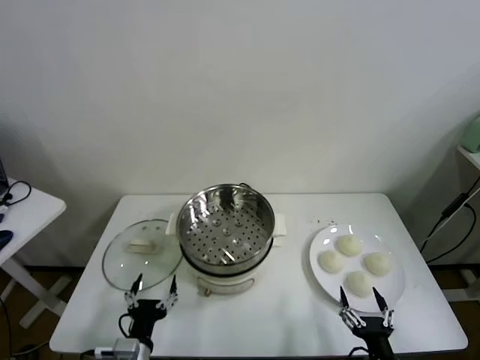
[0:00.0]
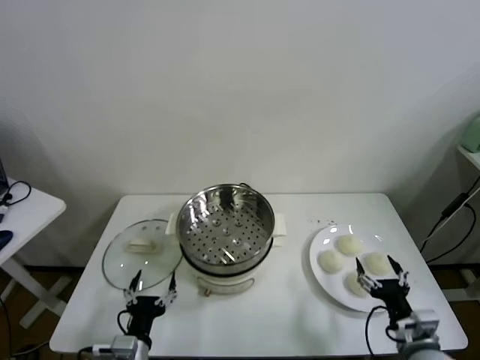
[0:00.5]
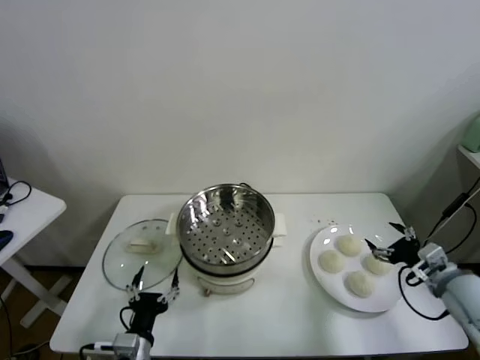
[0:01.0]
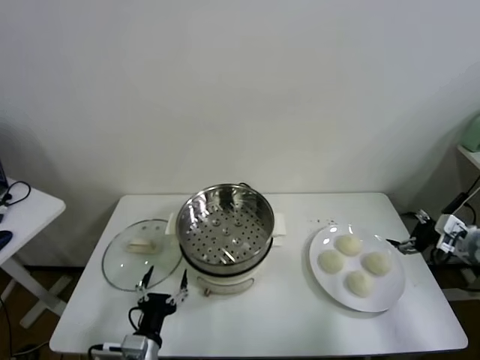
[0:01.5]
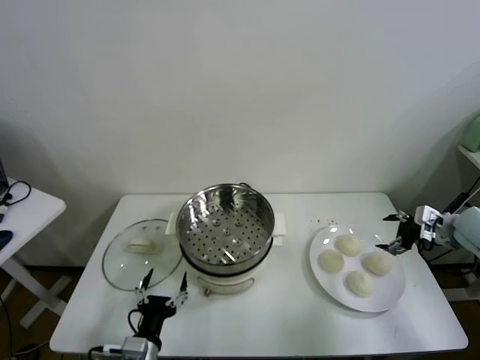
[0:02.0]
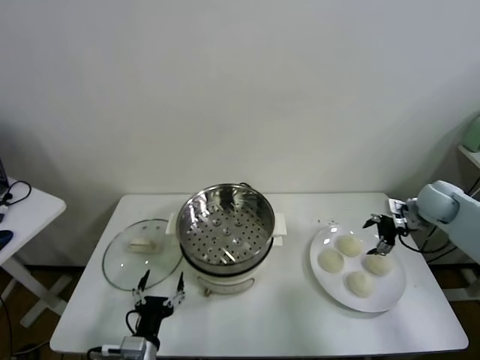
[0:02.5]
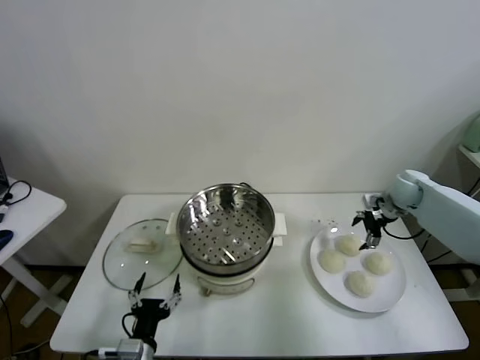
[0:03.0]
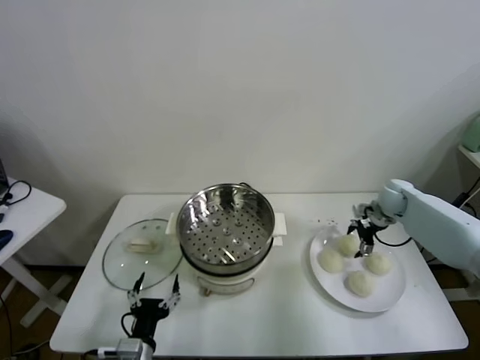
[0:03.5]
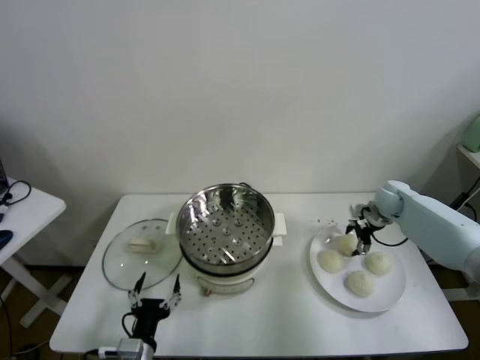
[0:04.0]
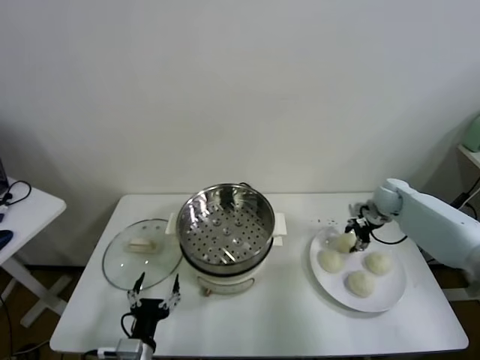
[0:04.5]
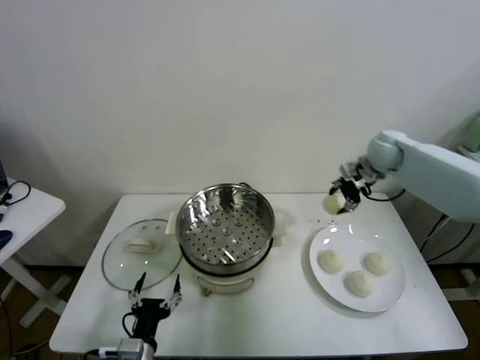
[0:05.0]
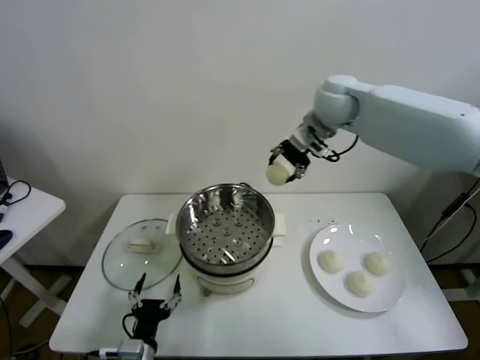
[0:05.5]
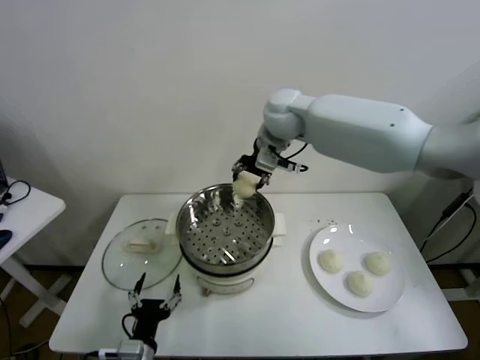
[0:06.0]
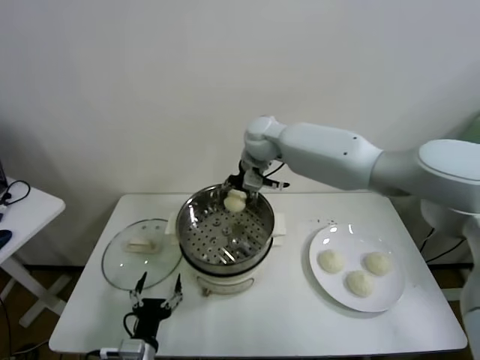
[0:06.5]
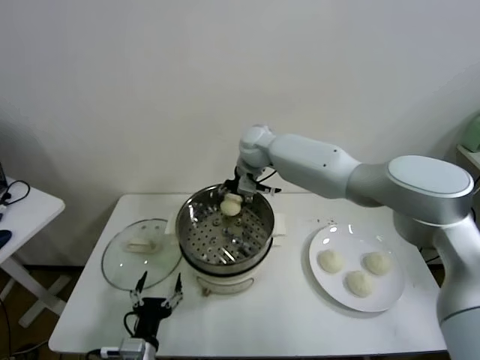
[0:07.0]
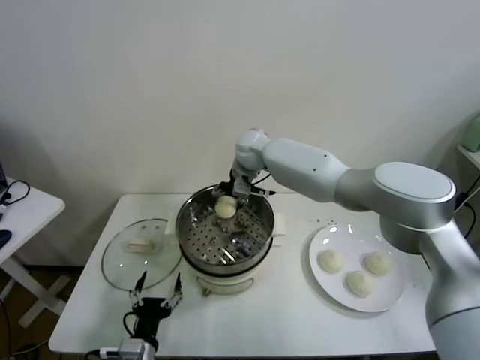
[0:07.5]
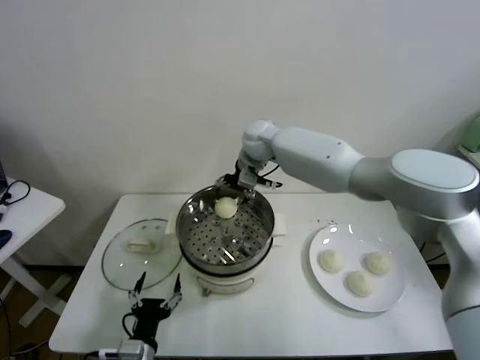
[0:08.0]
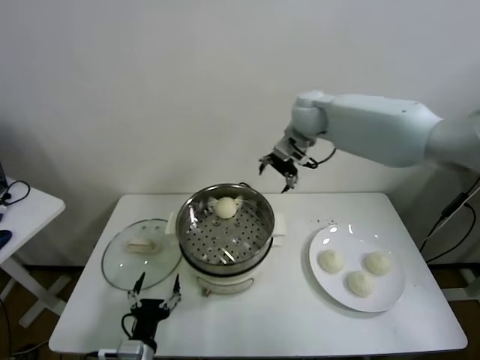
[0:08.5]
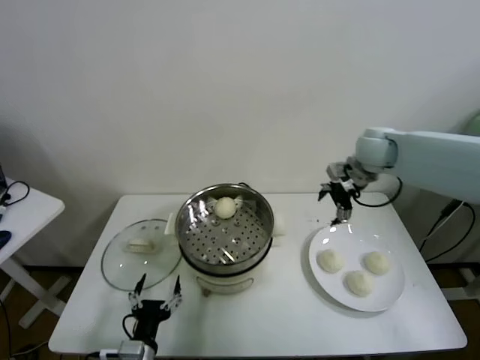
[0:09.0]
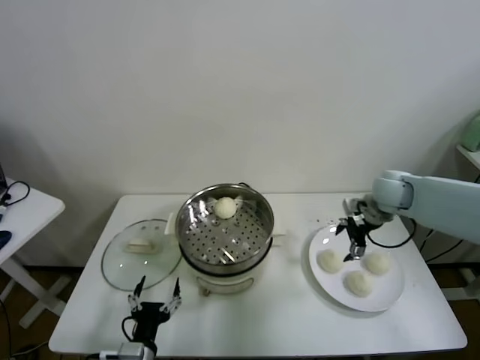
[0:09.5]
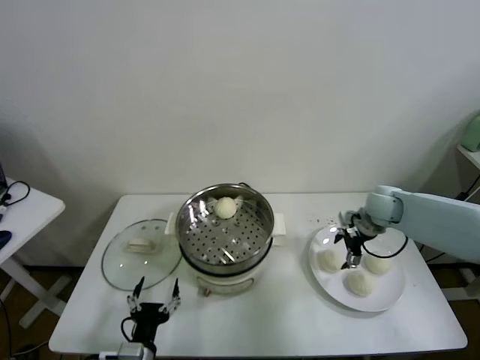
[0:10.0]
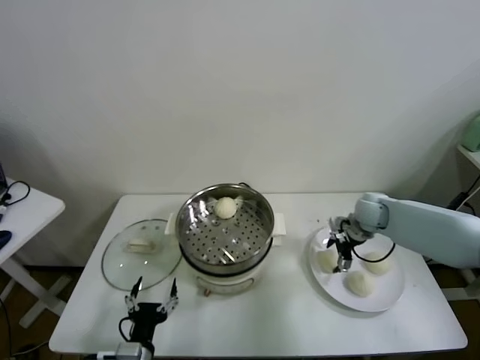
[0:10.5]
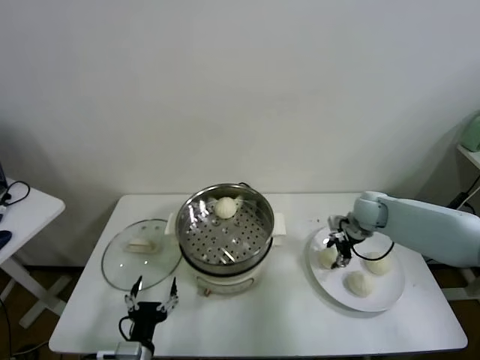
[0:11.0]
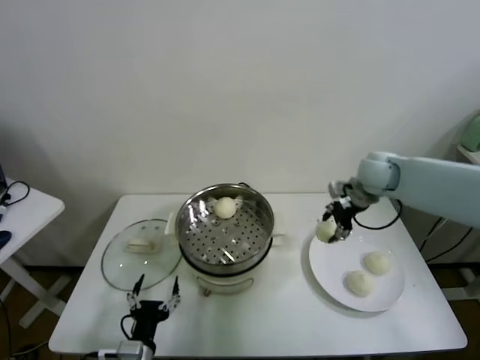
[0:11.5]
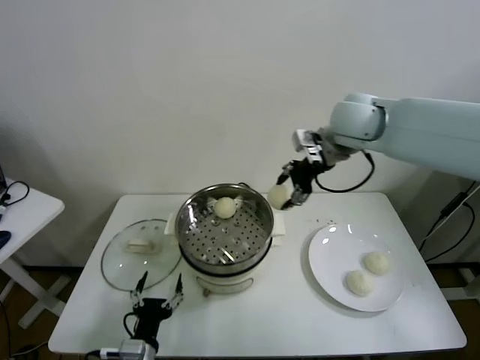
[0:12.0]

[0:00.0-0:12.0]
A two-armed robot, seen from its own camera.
Task of the whole recording: take steamed baozi put them in steamer.
Step, 0:00.0 to 0:04.0: Grasp the baozi in the plate with right gripper.
Step, 0:04.5 to 0:07.5: Place the baozi on the steamer with right gripper.
Step, 0:08.0 to 0:11.0: Grasp the baozi in the plate with right gripper.
0:02.0 to 0:04.0: The right gripper goes about 20 cm forward, to the left and downward.
0:04.0 to 0:06.0: The right gripper goes about 40 cm to the left and upward.
0:06.0 to 0:08.0: The right gripper shifts roughly 5 cm downward, and opens its fingers.
0:08.0 to 0:10.0: The right gripper is displaced to the right and downward by roughly 35 cm.
0:10.0 to 0:12.0: The right gripper goes some 30 cm upward and to the left, and closes its fingers.

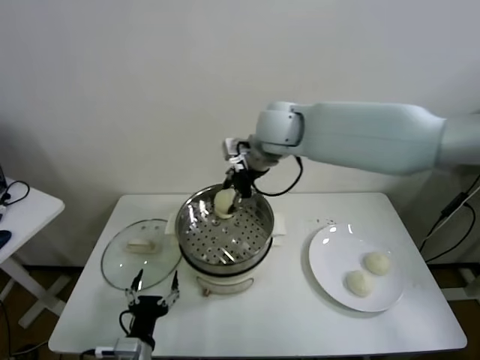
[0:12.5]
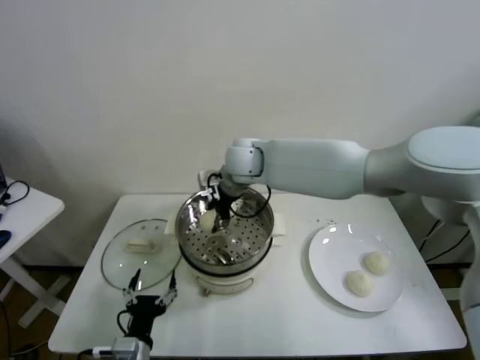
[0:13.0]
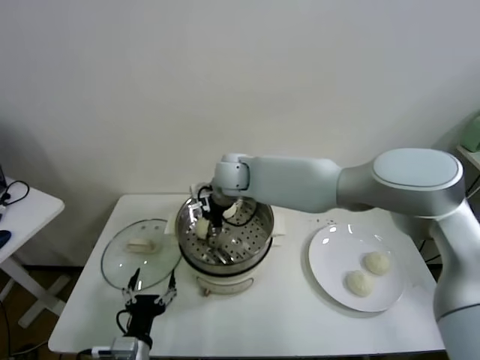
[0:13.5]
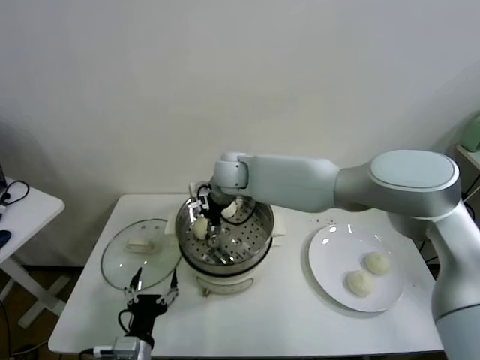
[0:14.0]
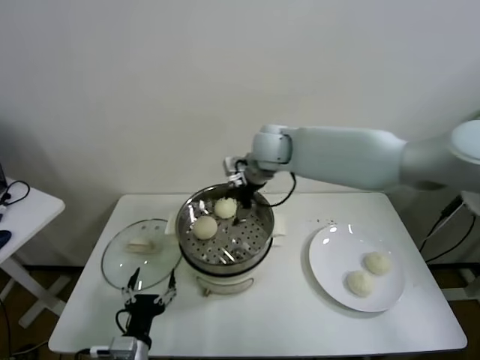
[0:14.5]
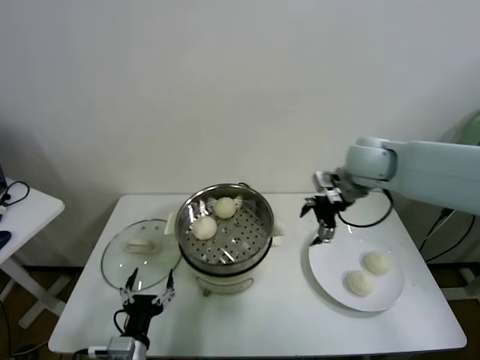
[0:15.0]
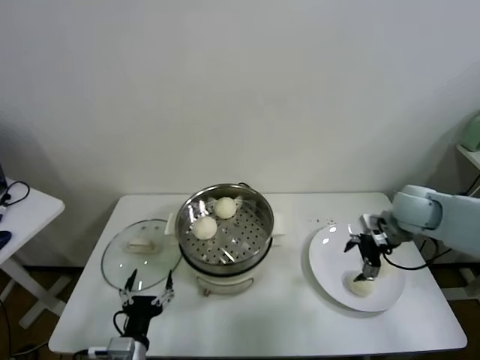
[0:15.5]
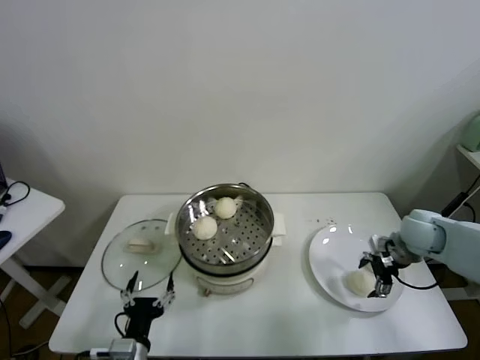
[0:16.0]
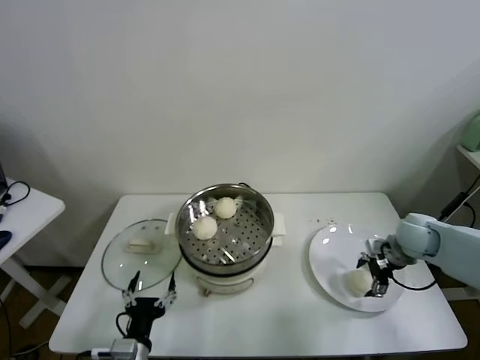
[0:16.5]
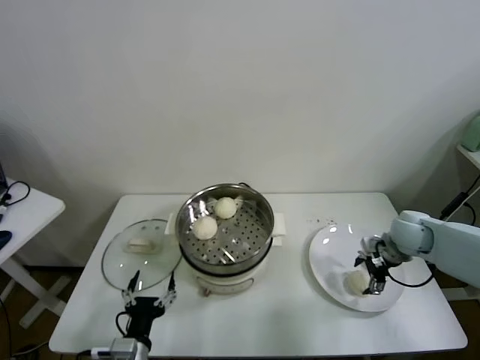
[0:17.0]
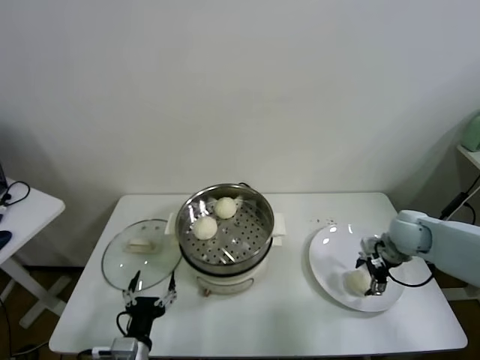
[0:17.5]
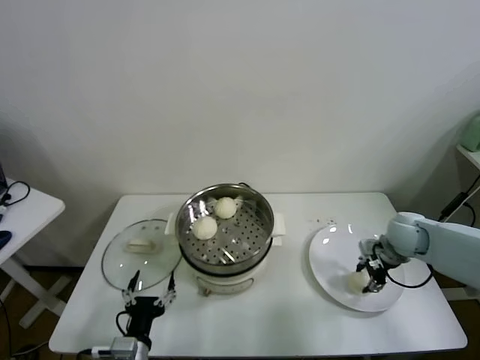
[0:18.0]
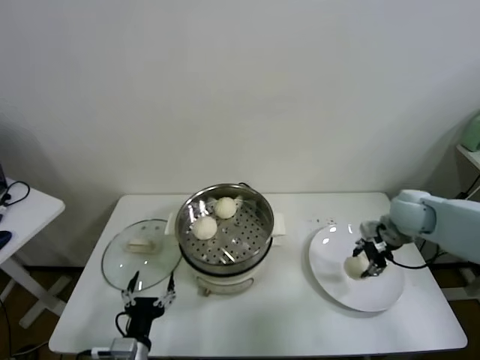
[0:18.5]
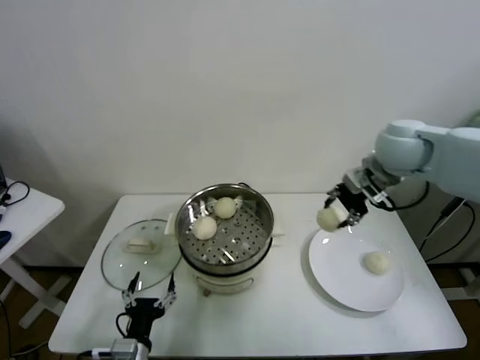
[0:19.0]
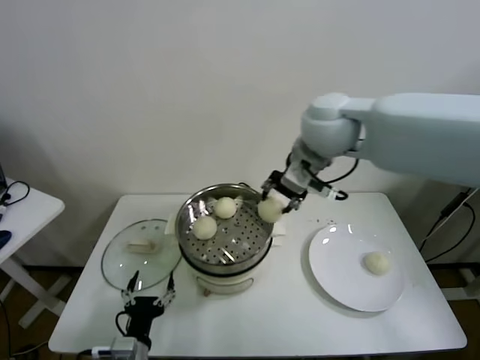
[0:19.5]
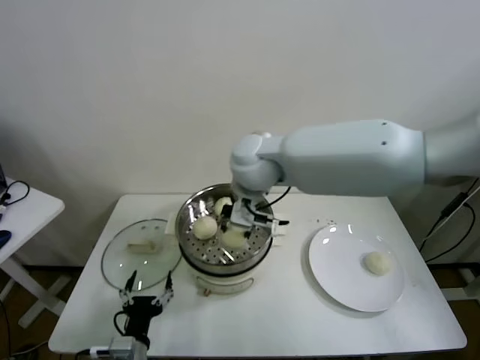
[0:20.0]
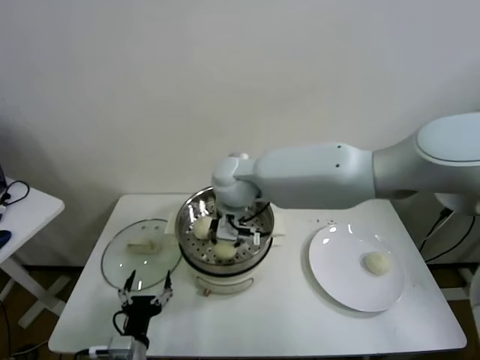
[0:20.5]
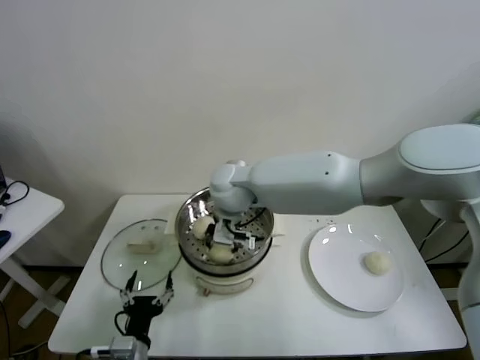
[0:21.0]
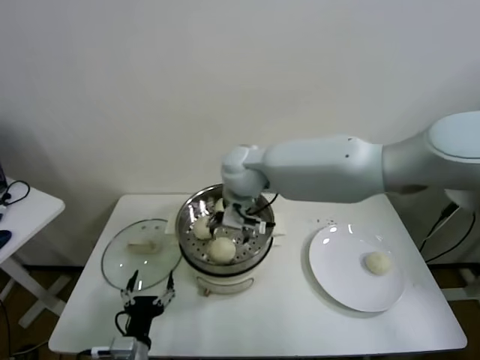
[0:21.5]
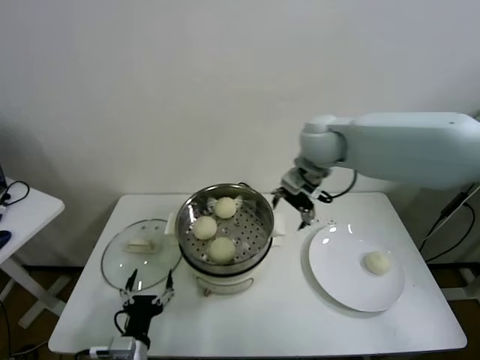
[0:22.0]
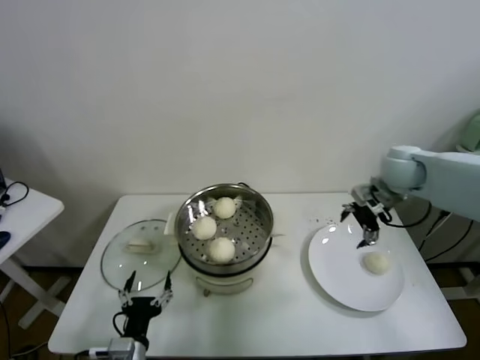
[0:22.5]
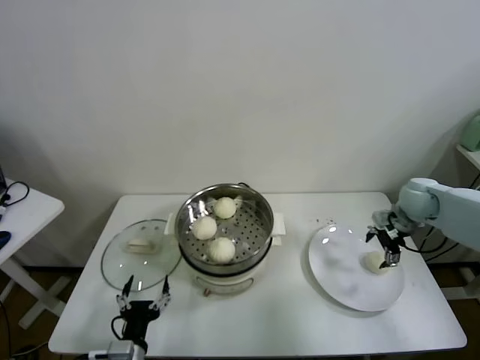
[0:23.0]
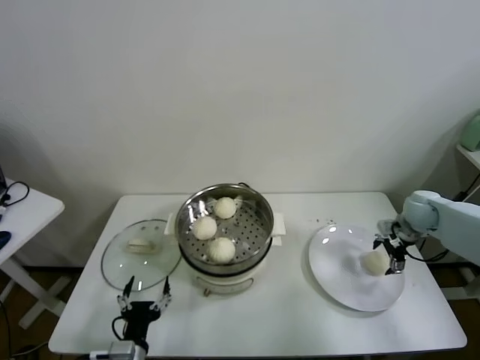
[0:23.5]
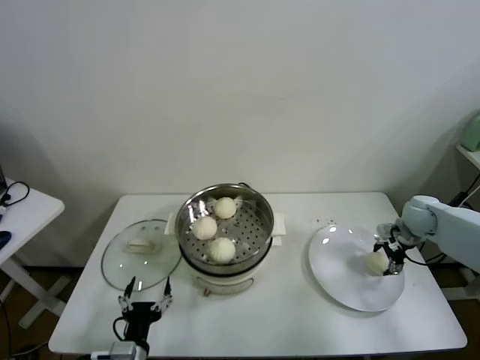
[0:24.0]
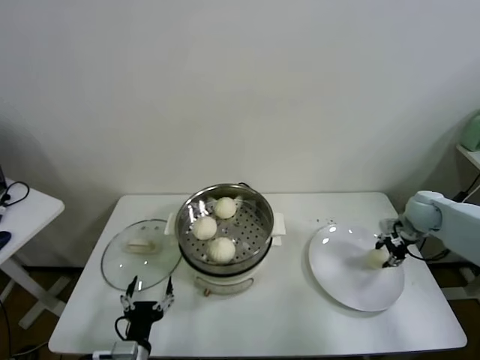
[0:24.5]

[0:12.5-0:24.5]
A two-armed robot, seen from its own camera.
Task of the whole recording: take steamed baozi put them in steamer.
Step, 0:12.5 to 0:14.0: Place the baozi on the steamer with right gripper.
Step, 0:14.5 to 0:18.0: Grasp the baozi in the plate with right gripper.
Step, 0:18.5 to 0:21.0: Place the baozi on the steamer with right gripper.
Step, 0:21.5 to 0:24.0: Grasp the baozi in the plate with right gripper.
0:12.5 to 0:14.5: The right gripper goes downward and returns, about 10 cm each way, and opens.
0:14.5 to 0:16.5: The right gripper shifts approximately 35 cm to the right and downward.
0:16.5 to 0:18.5: The right gripper heads upward, covering approximately 10 cm, and closes its fingers.
0:18.5 to 0:20.5: The right gripper moves to the left, about 40 cm.
0:20.5 to 0:22.5: The right gripper travels to the right by roughly 35 cm, and opens its fingers.
0:22.5 to 0:24.5: The right gripper shifts approximately 15 cm downward and to the right, and closes its fingers.

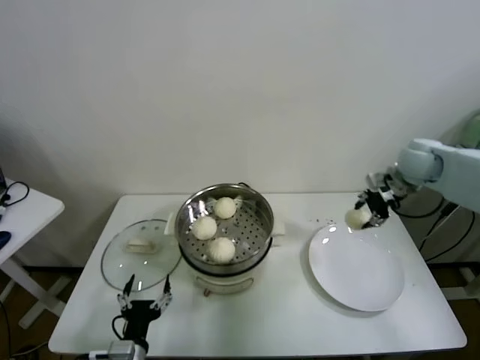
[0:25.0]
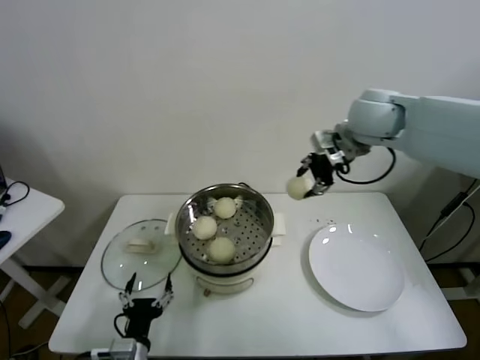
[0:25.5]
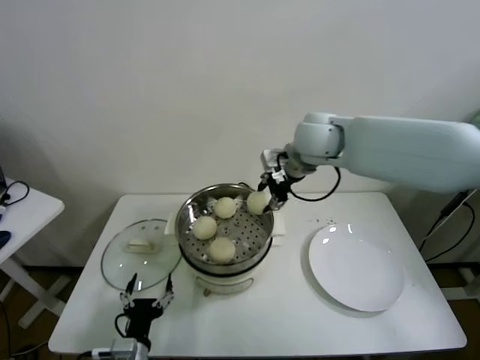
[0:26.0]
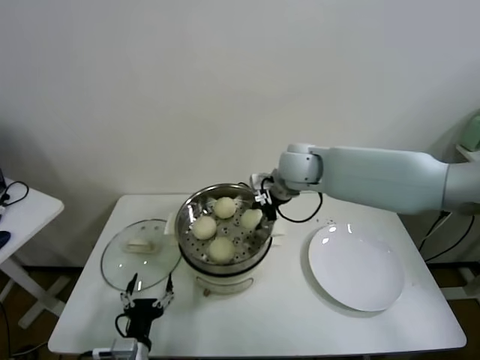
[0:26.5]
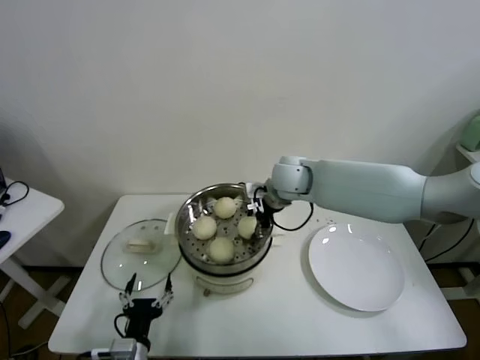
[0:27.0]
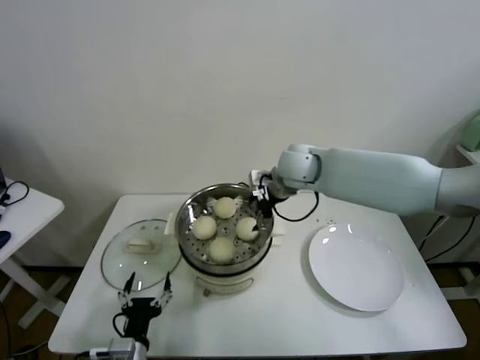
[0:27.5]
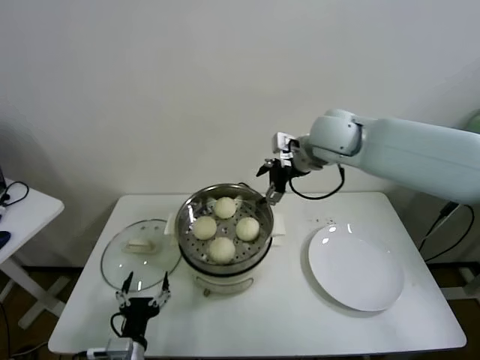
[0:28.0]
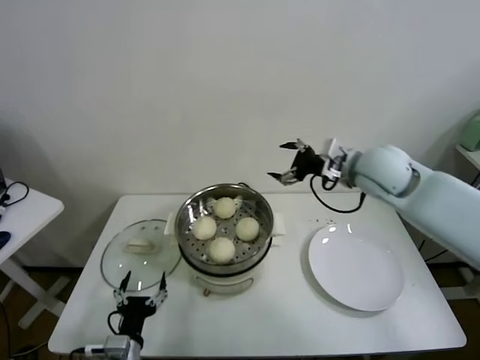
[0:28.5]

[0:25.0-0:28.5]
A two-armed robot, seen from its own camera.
Task of the whole recording: take steamed baozi put them in steamer.
Step, 0:25.0 to 0:27.0: Place the baozi on the steamer with right gripper.
0:25.0 to 0:27.0: The right gripper shifts some 25 cm to the left, and opens up.
0:27.0 to 0:28.5: The right gripper is displaced to the right and upward by about 15 cm, and opens up.
